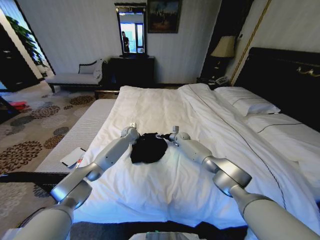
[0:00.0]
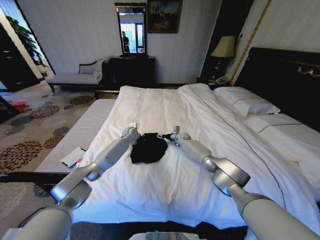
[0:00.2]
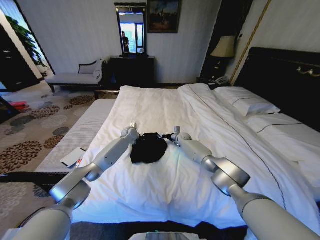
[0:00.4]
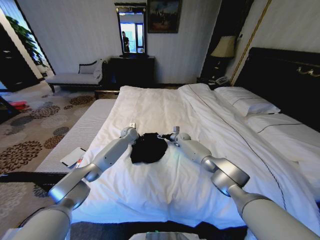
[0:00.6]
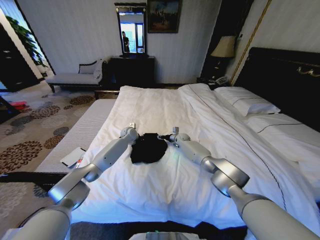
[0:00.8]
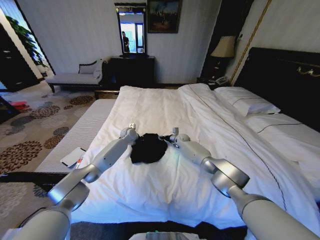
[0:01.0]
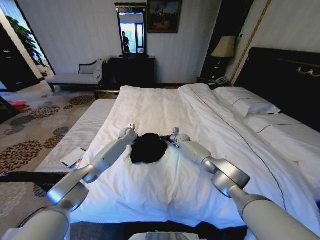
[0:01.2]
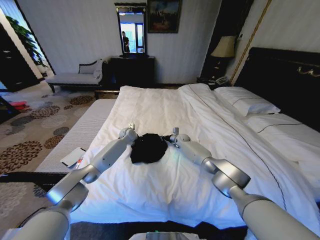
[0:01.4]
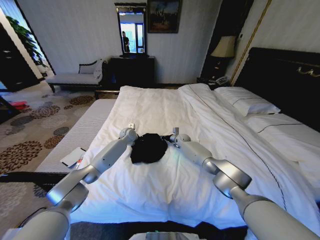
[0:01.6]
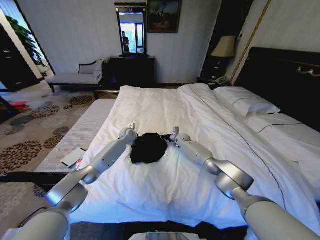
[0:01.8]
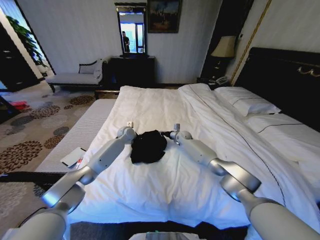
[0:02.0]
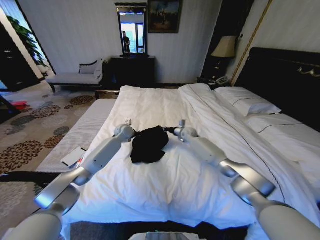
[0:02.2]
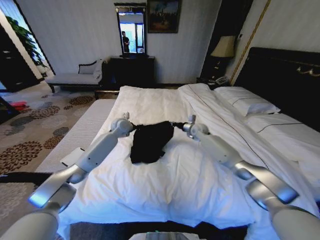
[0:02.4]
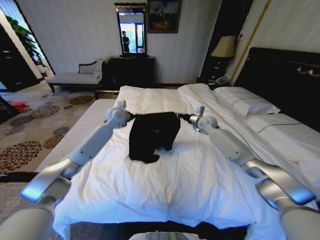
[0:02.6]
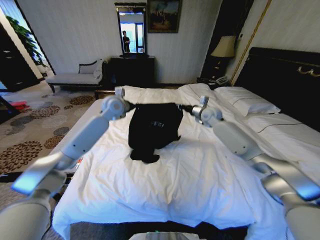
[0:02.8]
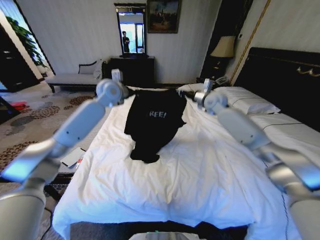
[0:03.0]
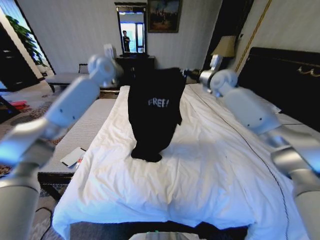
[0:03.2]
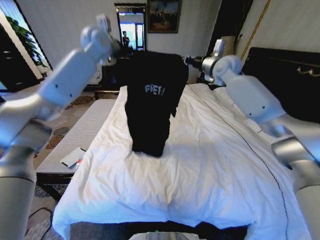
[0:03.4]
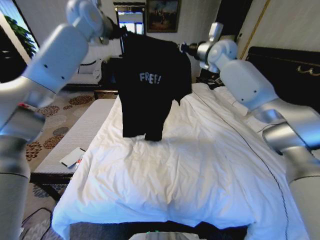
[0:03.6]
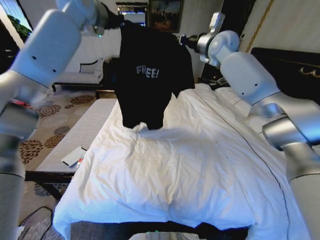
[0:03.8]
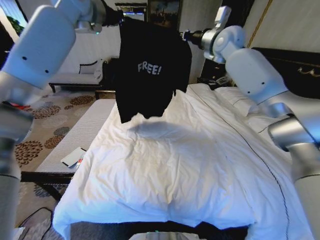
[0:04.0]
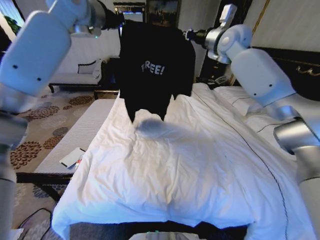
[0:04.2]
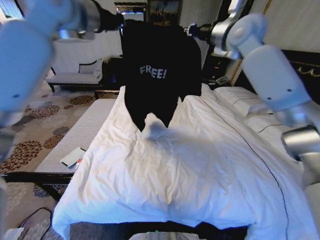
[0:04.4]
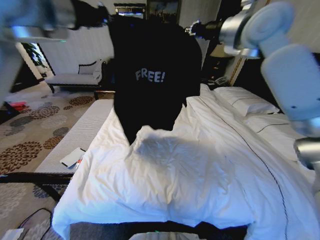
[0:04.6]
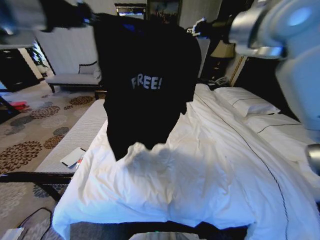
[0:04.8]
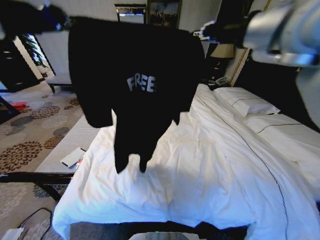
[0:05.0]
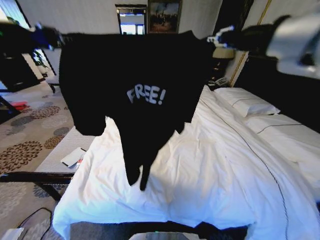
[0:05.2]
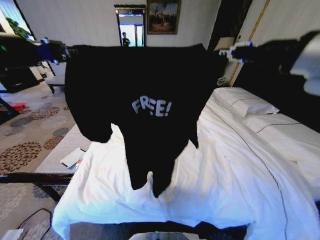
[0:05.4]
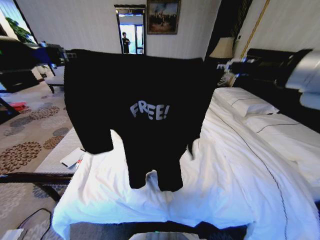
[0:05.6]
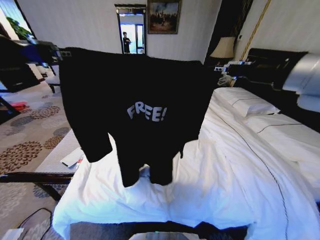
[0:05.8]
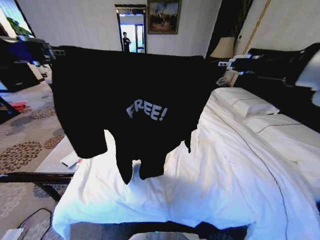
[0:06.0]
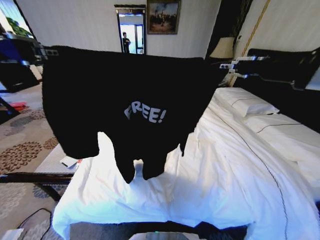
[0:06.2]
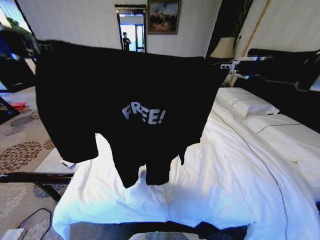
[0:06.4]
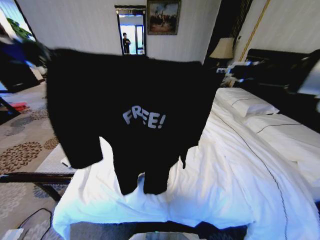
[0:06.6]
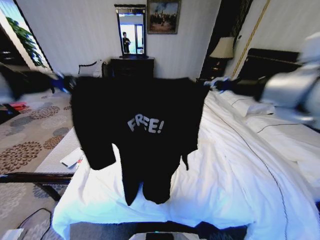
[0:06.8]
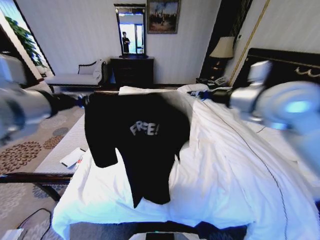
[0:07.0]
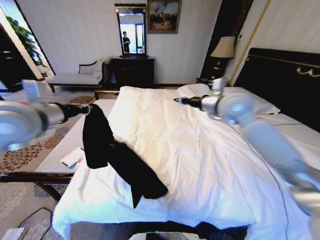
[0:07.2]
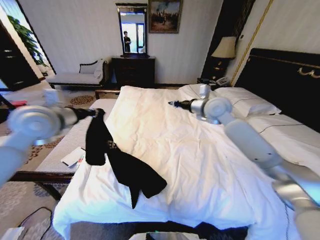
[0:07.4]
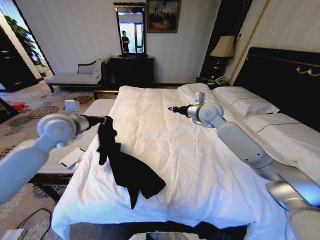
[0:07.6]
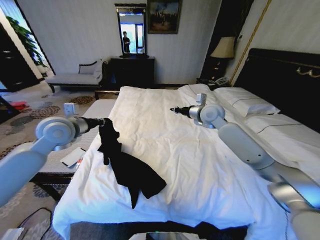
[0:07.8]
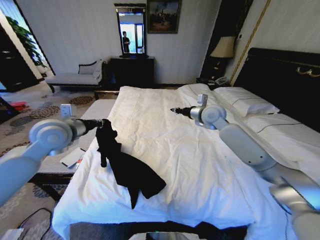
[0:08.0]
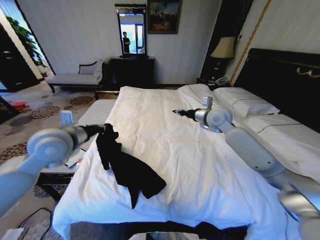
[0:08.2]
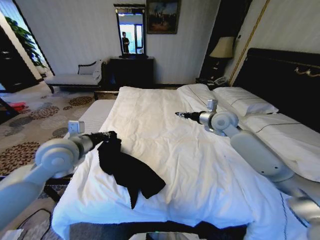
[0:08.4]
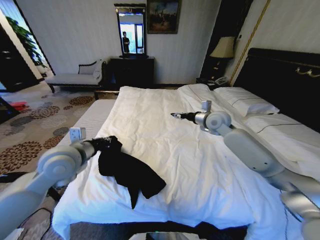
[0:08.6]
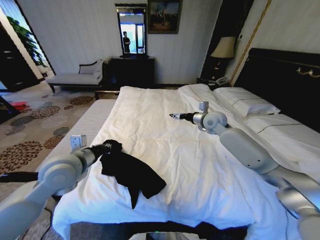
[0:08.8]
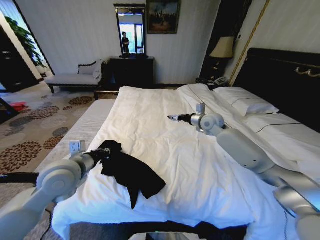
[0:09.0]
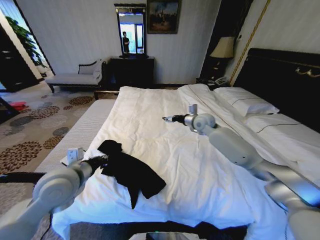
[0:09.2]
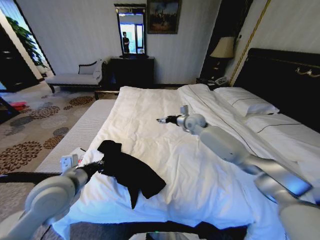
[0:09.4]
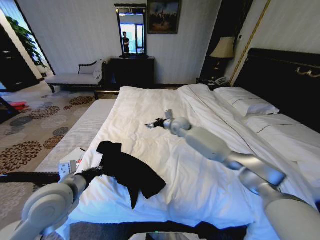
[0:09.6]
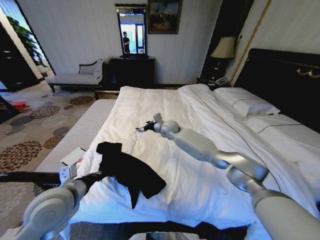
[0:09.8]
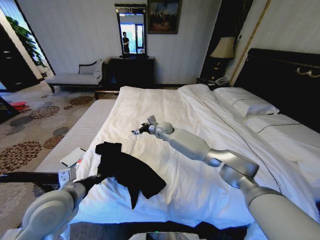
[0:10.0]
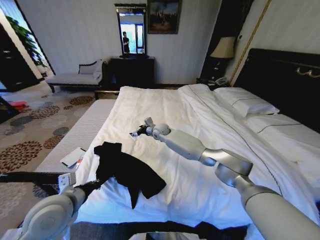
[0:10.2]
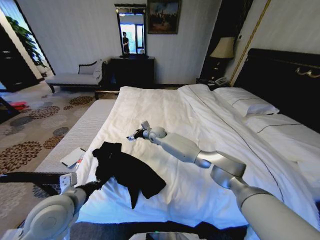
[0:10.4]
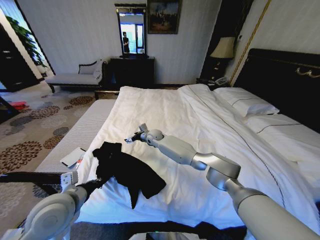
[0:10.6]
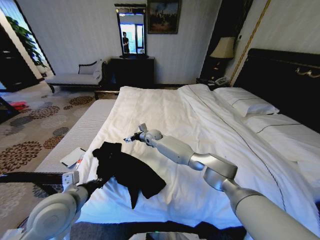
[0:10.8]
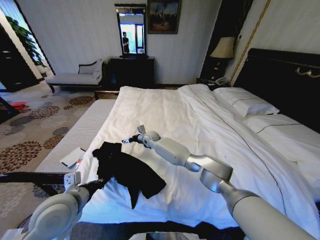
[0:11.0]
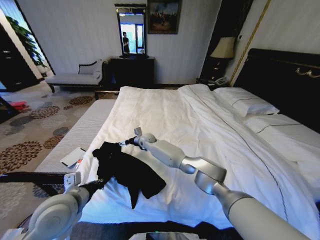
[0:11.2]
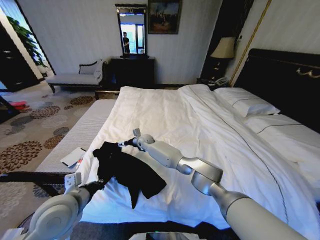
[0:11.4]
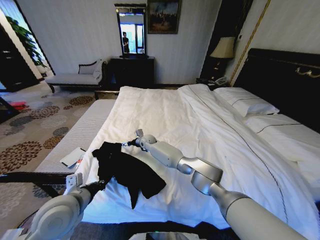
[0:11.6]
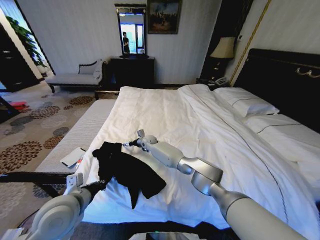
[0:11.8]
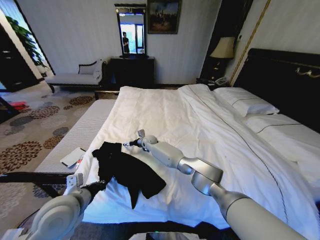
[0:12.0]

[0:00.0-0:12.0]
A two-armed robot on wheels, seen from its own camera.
Task of the whole recording: Fold the clothes on the bed.
0:00.0 to 0:01.6: The right gripper closes up.
0:01.6 to 0:03.0: Both grippers travel together upward, approximately 30 cm.
0:03.0 to 0:04.4: The grippers both shift upward by about 20 cm.
0:04.4 to 0:06.0: Both grippers move backward, some 30 cm.
0:06.0 to 0:07.6: The left gripper goes some 30 cm downward and forward. Meanwhile the right gripper heads forward and downward, covering roughly 35 cm.
0:07.6 to 0:09.0: The right gripper heads downward, covering approximately 5 cm, and opens; the left gripper shifts about 15 cm backward and downward.
0:09.0 to 0:10.4: The right gripper goes approximately 30 cm to the left and downward. The left gripper shifts approximately 10 cm backward and downward.
0:10.4 to 0:12.0: The right gripper moves downward, some 5 cm.

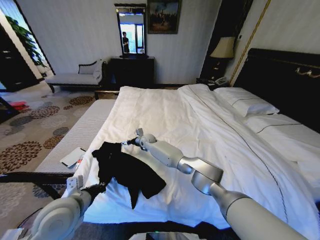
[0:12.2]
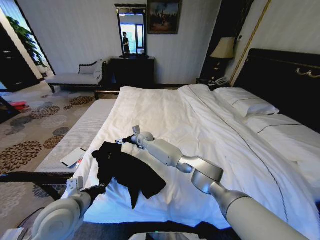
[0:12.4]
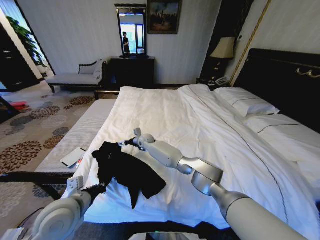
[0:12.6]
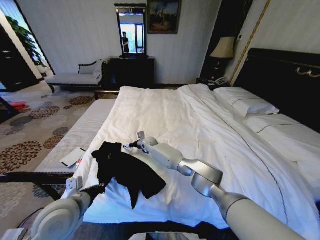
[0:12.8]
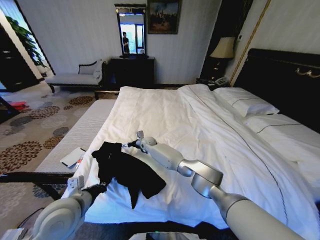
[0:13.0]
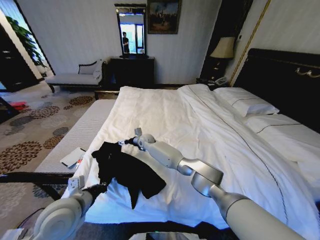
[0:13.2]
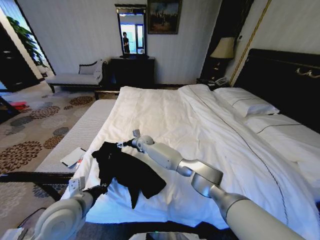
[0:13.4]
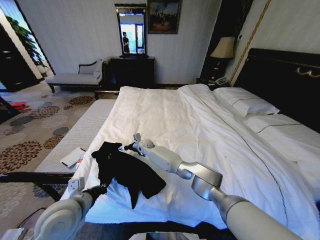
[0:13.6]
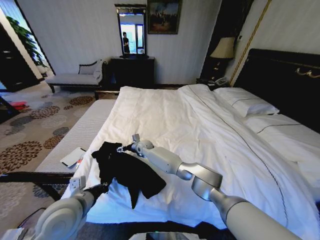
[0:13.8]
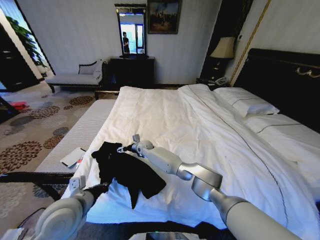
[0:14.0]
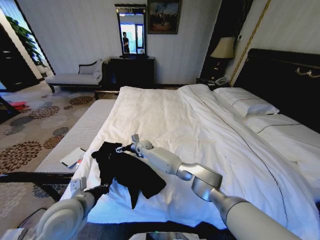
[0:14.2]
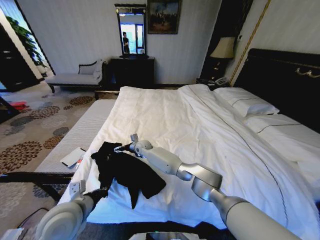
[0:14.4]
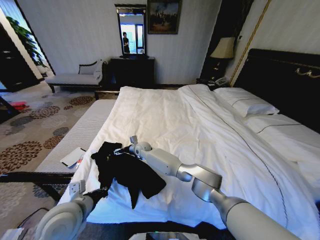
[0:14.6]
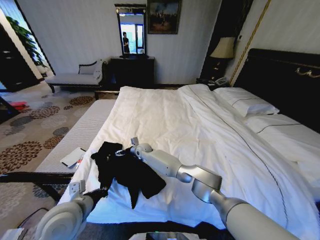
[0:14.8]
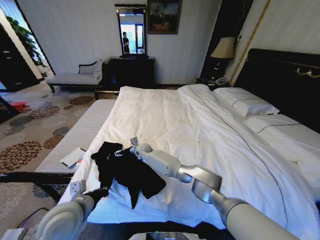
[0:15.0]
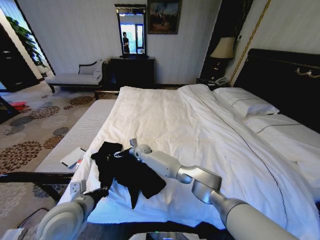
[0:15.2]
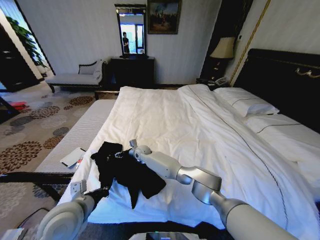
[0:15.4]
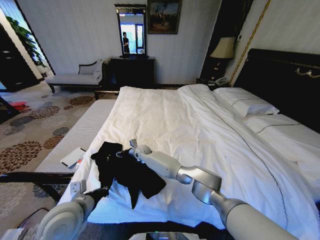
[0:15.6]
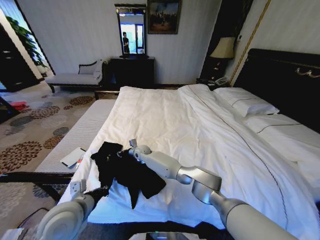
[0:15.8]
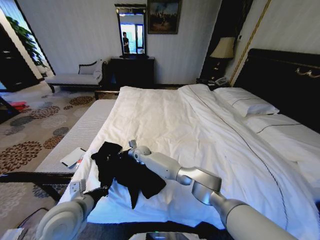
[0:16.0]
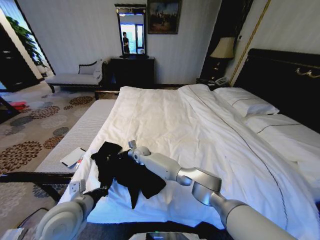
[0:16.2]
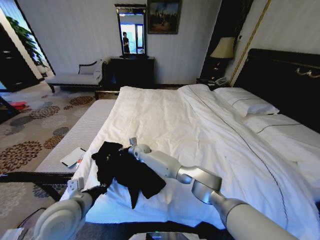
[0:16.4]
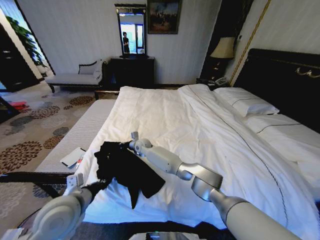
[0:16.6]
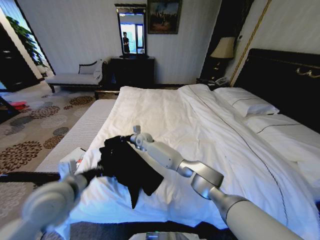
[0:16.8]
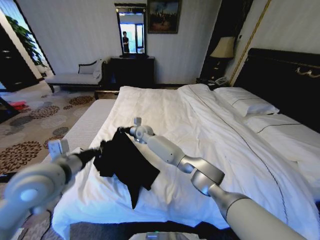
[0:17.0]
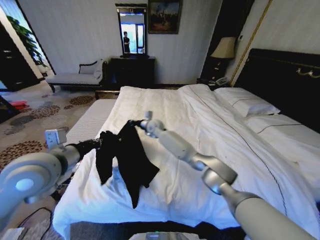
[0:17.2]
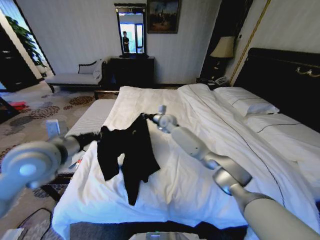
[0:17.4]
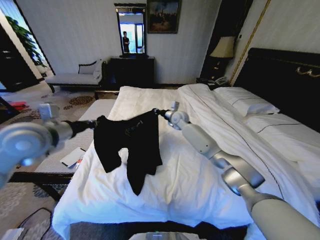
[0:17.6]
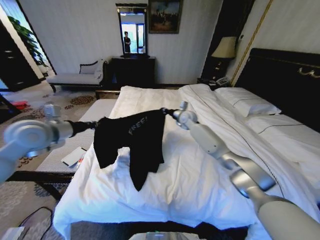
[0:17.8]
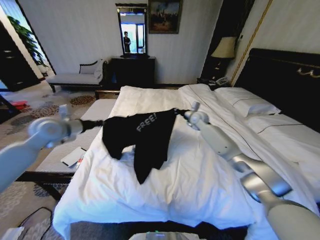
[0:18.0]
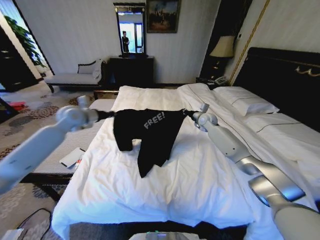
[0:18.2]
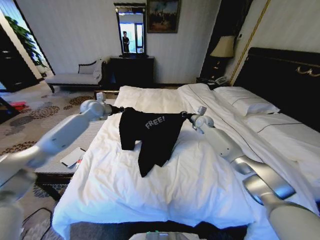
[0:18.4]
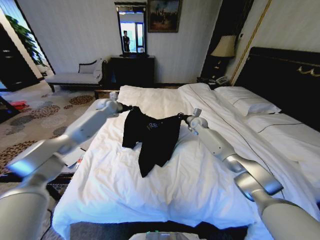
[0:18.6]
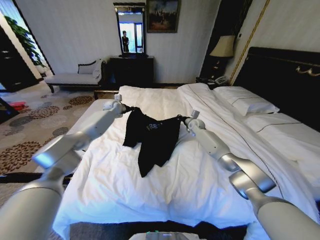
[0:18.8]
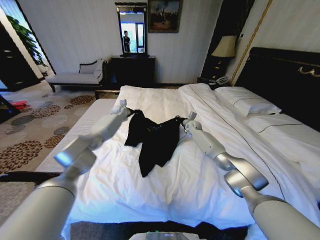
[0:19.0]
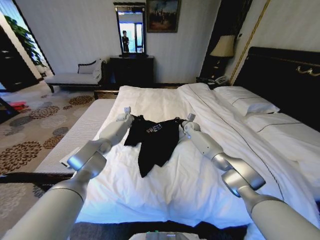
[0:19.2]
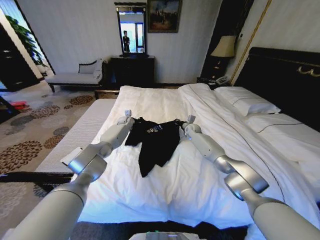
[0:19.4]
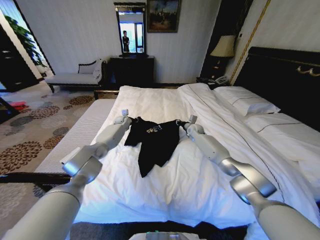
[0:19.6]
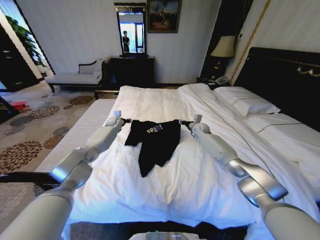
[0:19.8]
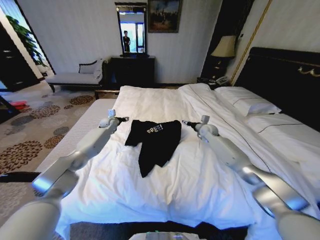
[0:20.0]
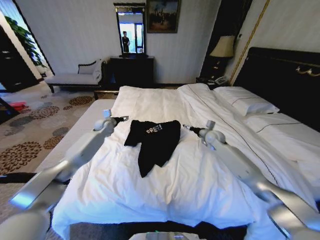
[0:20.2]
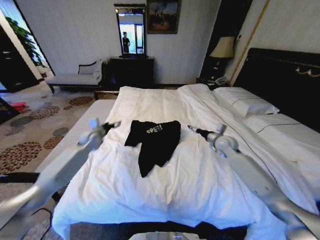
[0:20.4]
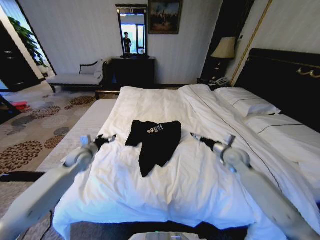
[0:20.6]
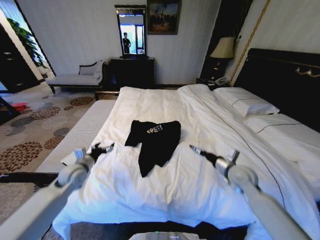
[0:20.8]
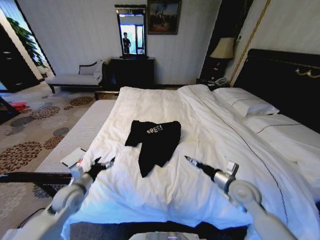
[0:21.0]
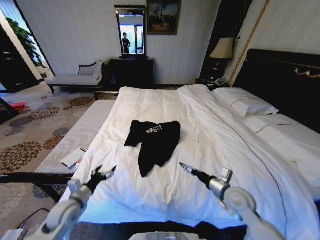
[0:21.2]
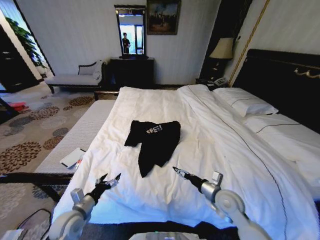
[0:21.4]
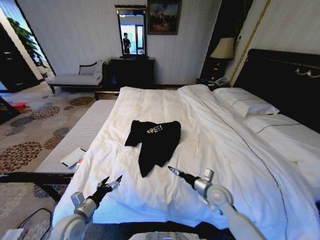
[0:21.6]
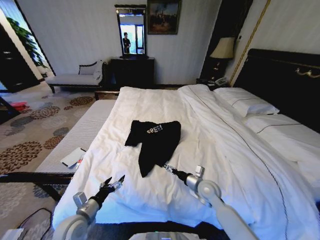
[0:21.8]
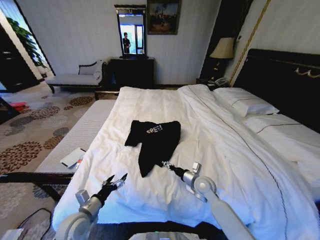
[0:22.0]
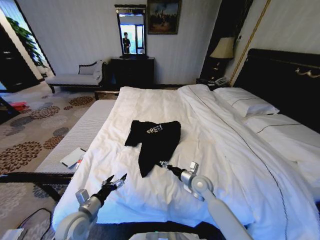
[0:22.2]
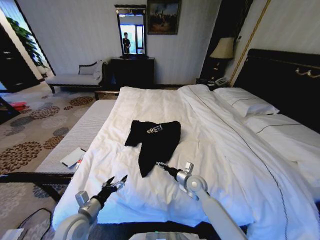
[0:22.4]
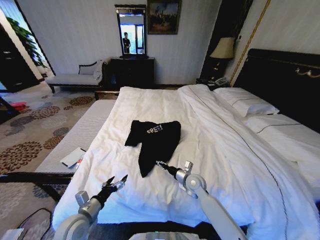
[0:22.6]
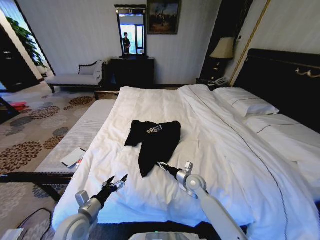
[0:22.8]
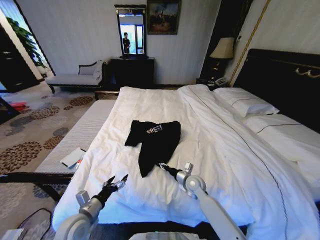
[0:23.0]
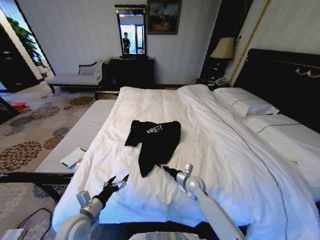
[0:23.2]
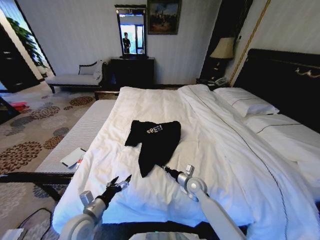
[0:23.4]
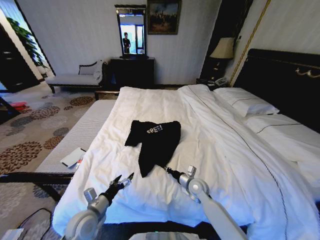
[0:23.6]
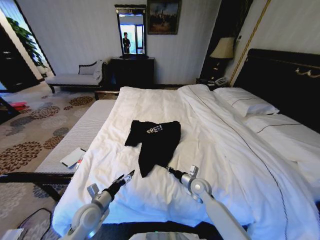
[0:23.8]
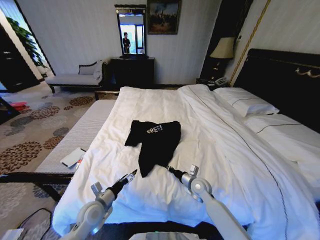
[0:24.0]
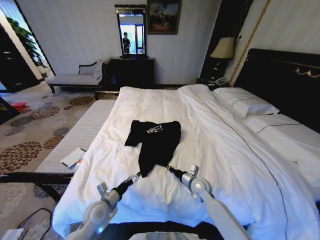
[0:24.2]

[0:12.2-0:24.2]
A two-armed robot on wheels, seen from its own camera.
Task of the whole recording: Fold the clothes on the bed.
0:12.2 to 0:13.8: The grippers make only small movements.
0:13.8 to 0:15.2: The grippers stay close to where they were, moving slightly.
0:15.2 to 0:16.6: The right gripper closes up.
0:16.6 to 0:18.2: The left gripper is displaced forward by approximately 30 cm; the right gripper shifts approximately 35 cm to the right.
0:18.2 to 0:19.8: The right gripper travels downward by roughly 10 cm, and opens; the left gripper moves downward and forward, roughly 25 cm, and opens its fingers.
0:19.8 to 0:21.2: Both grippers travel together backward, about 40 cm. The left gripper opens. The right gripper opens.
0:21.2 to 0:22.6: The left gripper shifts by roughly 5 cm, while the right gripper travels to the left, forward and downward by about 15 cm.
0:22.6 to 0:24.2: The left gripper travels forward and to the right by about 5 cm, while the right gripper closes.
